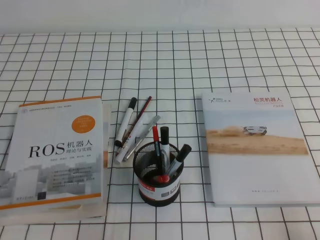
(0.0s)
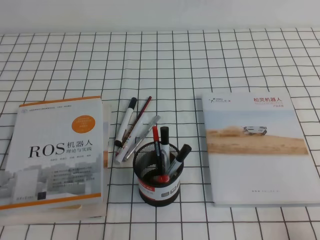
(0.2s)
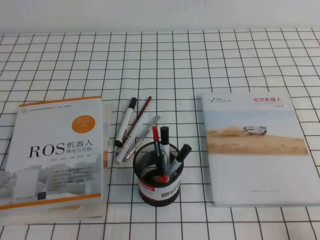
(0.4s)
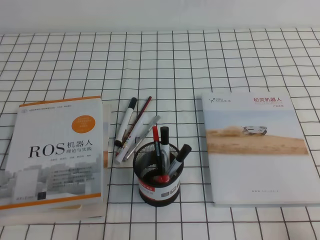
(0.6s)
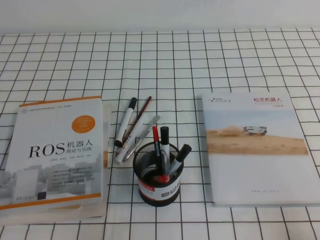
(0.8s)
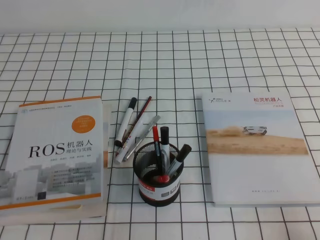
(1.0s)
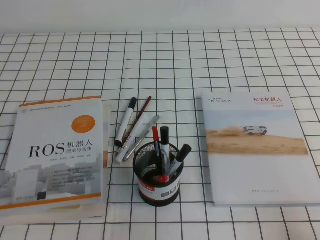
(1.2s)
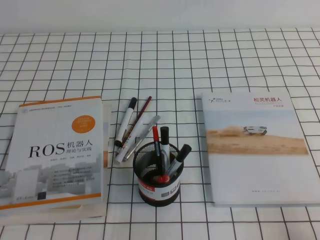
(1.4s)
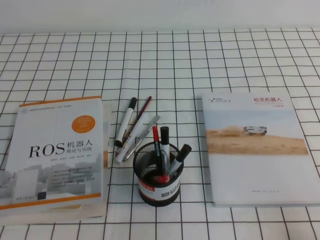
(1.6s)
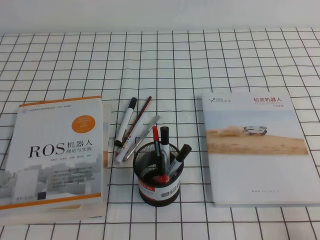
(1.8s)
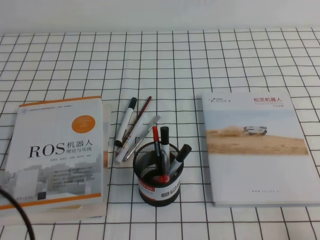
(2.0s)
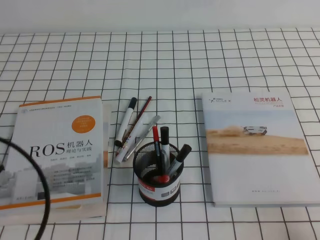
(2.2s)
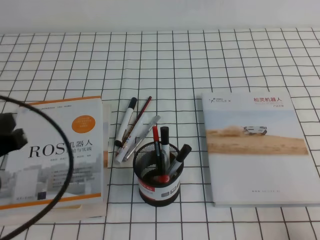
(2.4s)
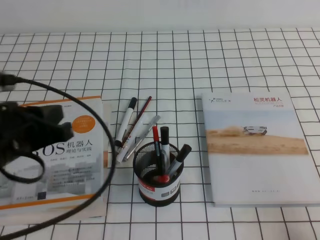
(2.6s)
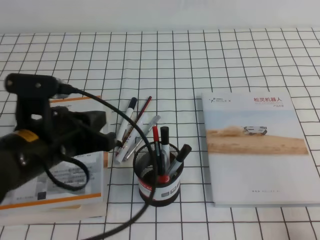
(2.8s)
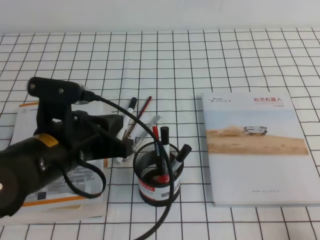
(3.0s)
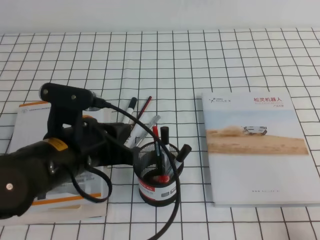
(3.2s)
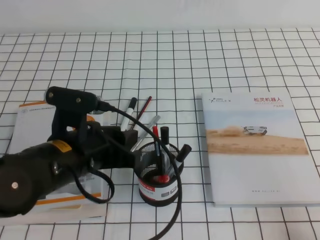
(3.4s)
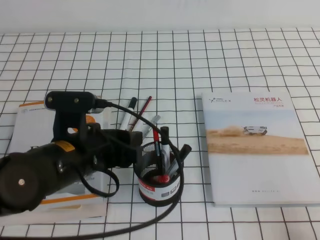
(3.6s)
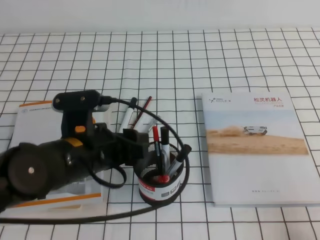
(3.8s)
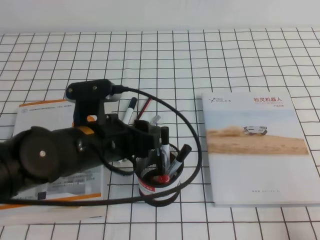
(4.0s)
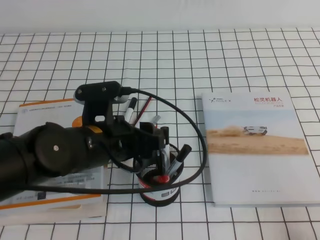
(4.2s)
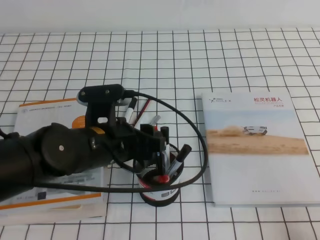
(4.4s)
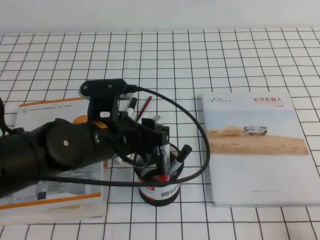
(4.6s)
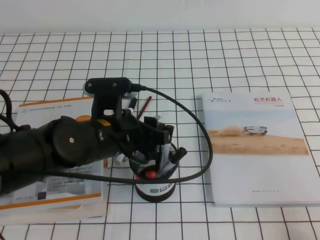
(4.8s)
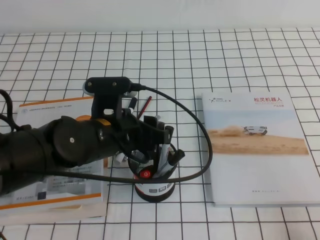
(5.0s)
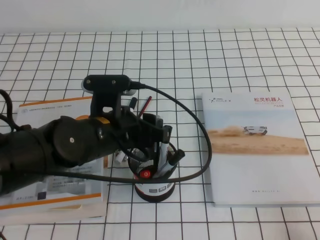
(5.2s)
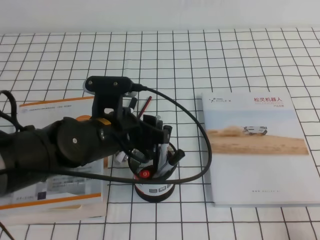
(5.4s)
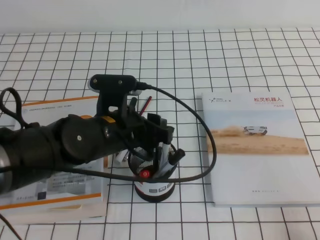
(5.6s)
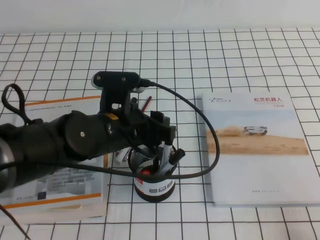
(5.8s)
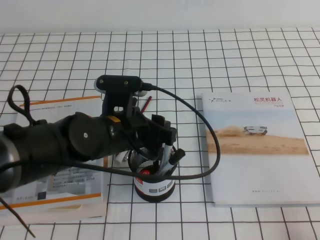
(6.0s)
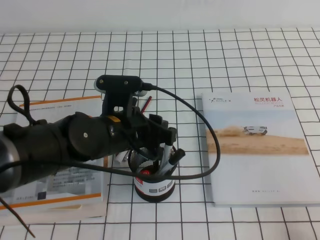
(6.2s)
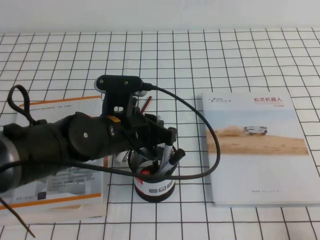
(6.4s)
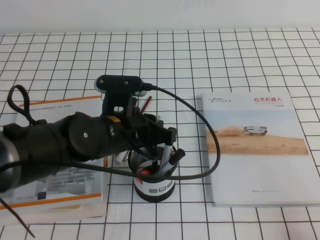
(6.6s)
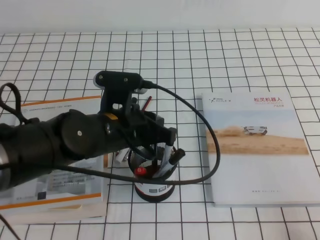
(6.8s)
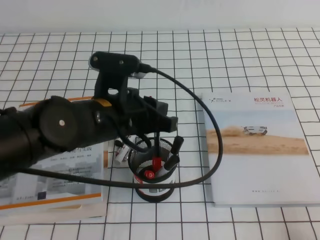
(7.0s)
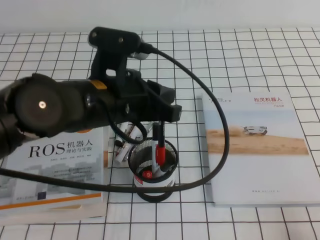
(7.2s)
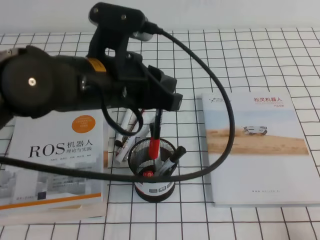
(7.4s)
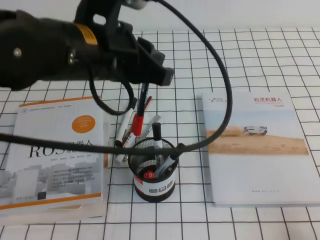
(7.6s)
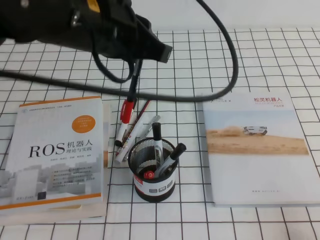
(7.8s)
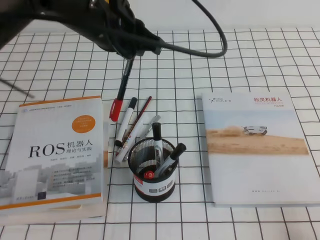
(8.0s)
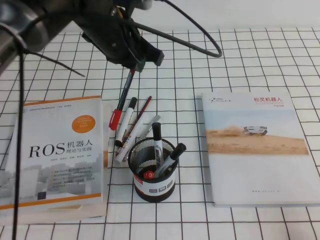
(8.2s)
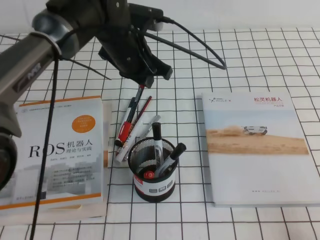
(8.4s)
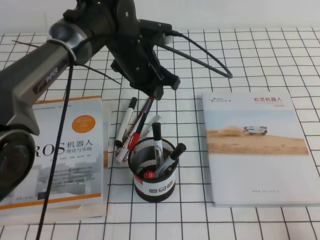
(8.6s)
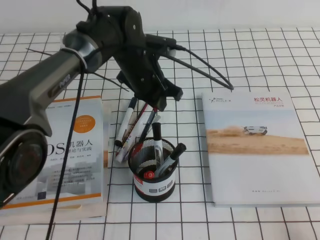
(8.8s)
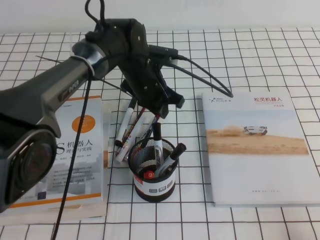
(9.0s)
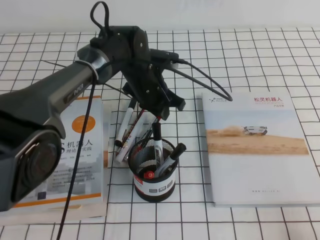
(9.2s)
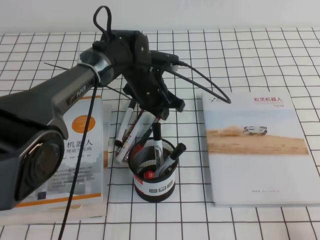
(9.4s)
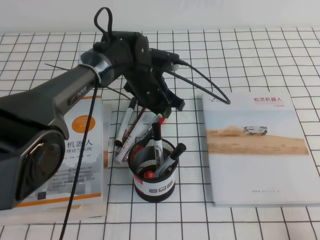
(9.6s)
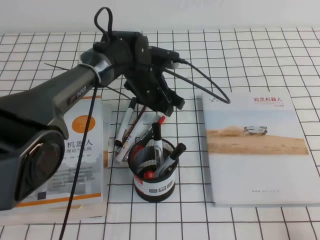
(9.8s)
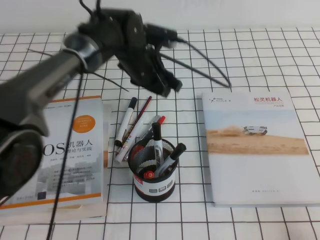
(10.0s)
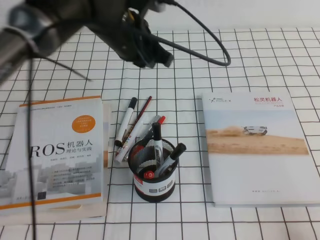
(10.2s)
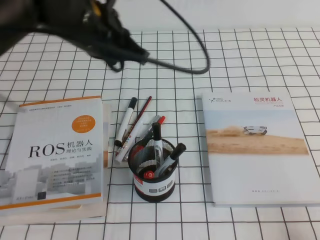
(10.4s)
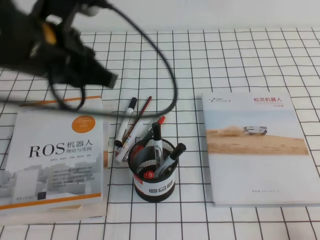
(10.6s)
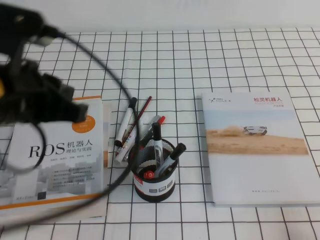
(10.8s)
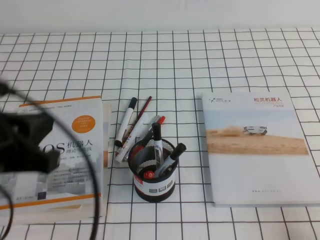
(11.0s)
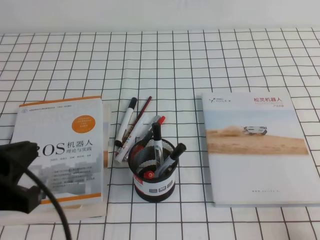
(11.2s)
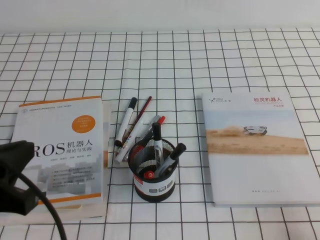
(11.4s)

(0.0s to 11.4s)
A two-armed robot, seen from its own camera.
1.4s - 2.8s: The left gripper shifts approximately 20 cm forward, to the right and upward.
2.8s - 4.2s: The left gripper heads to the right, covering about 10 cm, and opens its fingers.
4.2s - 5.6s: The grippers move only a little.
5.6s - 7.2s: The left gripper shifts approximately 10 cm upward, and closes up.
7.2s - 8.6s: The left gripper travels forward by approximately 15 cm.
8.6s - 10.0s: The left gripper reaches some 10 cm downward, then returns, and opens up.
10.0s - 11.4s: The left gripper is displaced backward and to the left by about 35 cm, and closes.

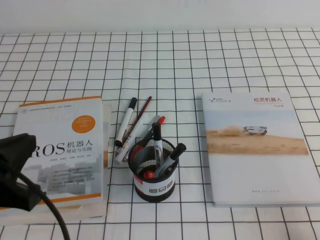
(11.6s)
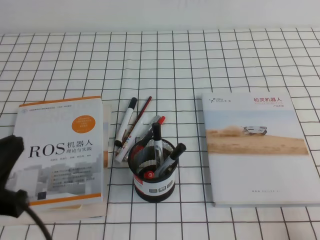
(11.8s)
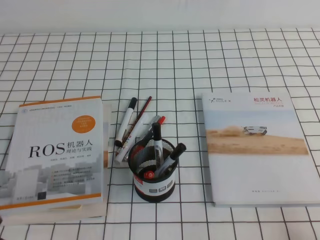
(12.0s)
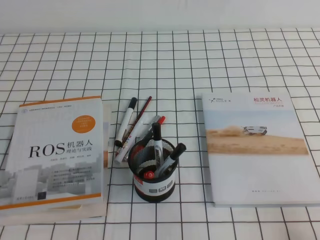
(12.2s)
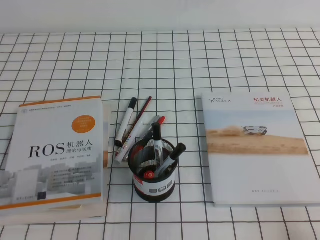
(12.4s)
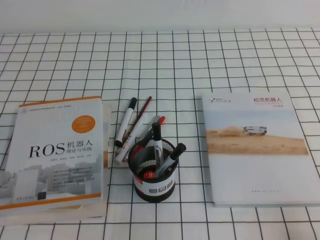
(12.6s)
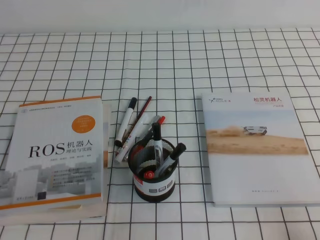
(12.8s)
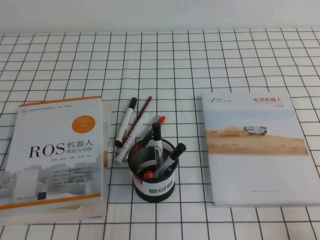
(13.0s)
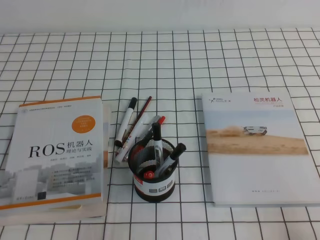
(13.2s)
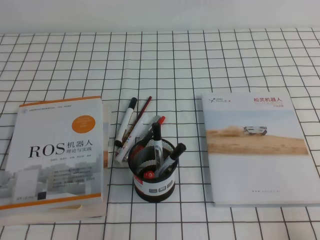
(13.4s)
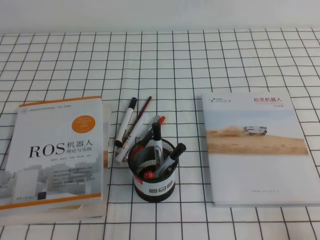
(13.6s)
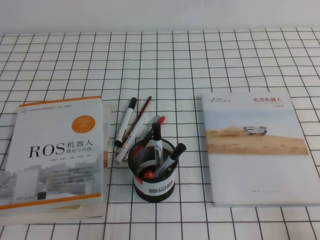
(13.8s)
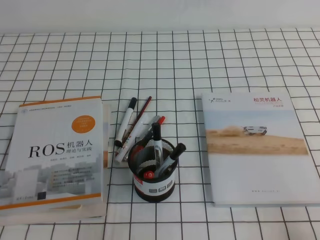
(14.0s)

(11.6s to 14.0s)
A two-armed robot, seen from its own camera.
Step, 11.6s - 14.0s: Pick up the pen from the pen holder.
11.6s - 12.8s: The left gripper goes approximately 15 cm downward and backward.

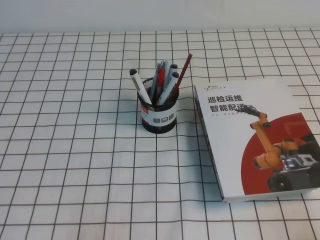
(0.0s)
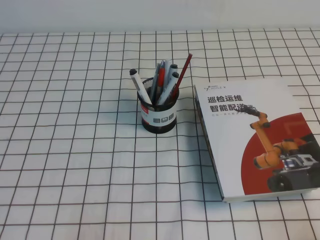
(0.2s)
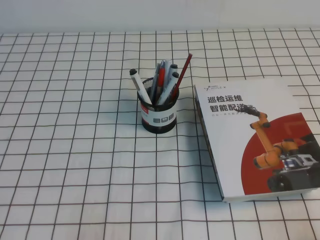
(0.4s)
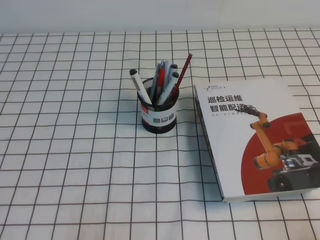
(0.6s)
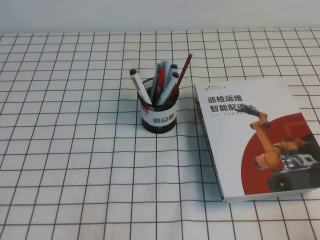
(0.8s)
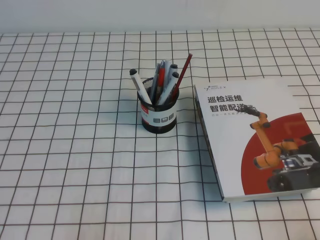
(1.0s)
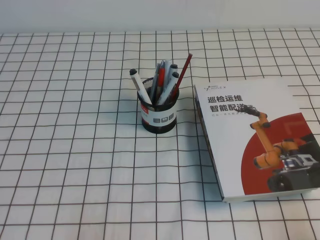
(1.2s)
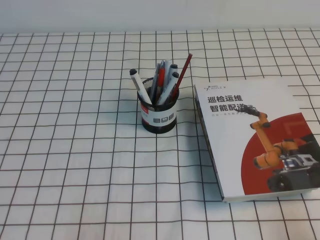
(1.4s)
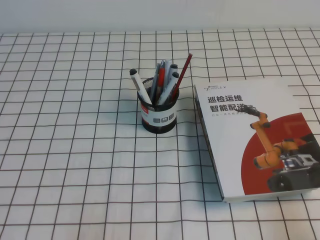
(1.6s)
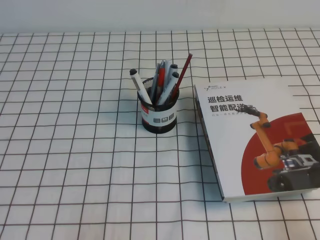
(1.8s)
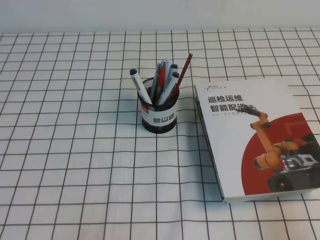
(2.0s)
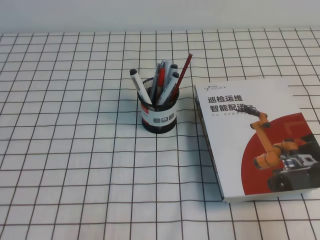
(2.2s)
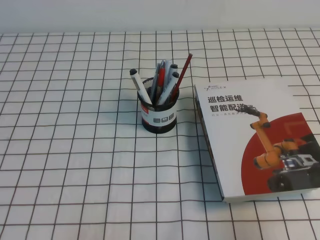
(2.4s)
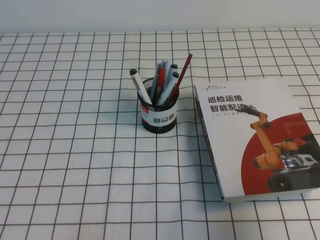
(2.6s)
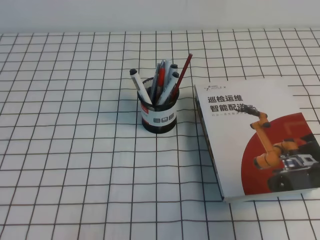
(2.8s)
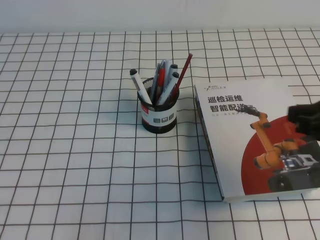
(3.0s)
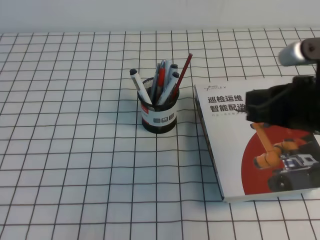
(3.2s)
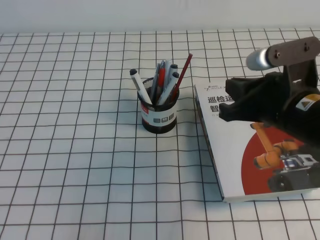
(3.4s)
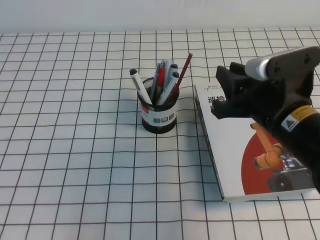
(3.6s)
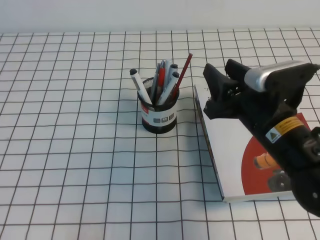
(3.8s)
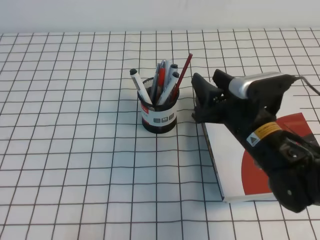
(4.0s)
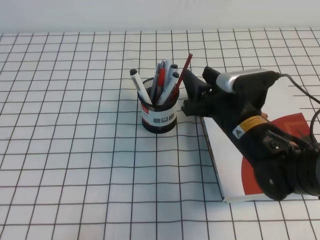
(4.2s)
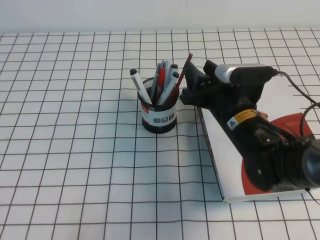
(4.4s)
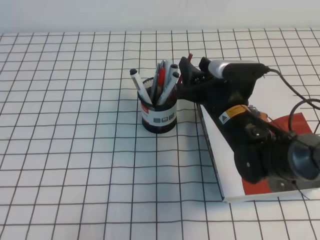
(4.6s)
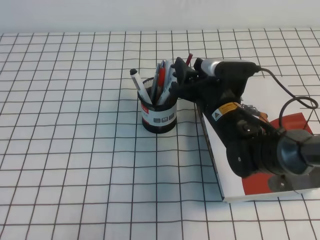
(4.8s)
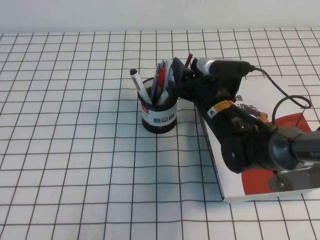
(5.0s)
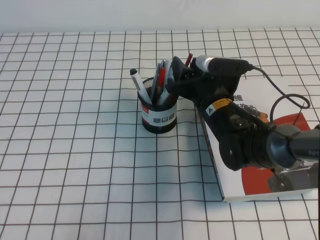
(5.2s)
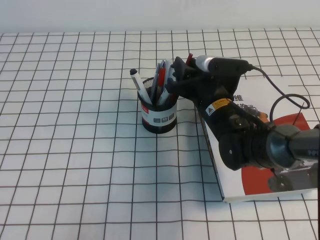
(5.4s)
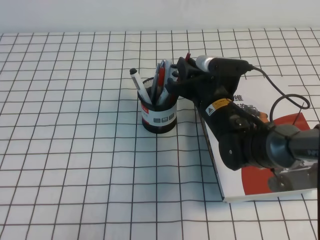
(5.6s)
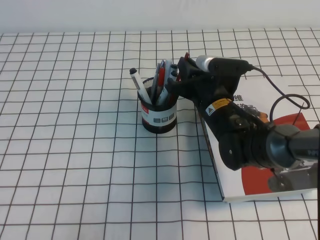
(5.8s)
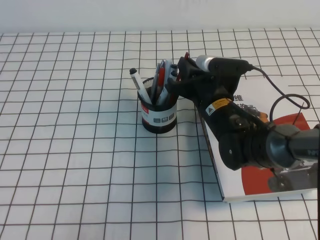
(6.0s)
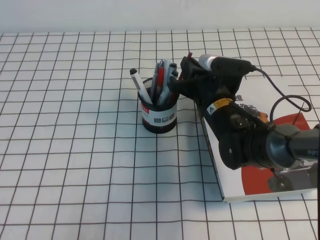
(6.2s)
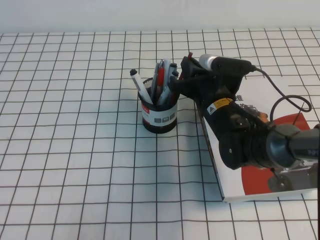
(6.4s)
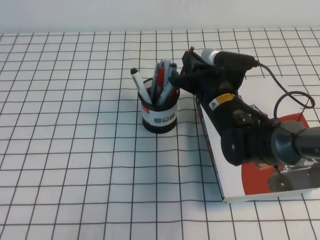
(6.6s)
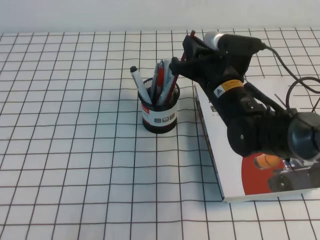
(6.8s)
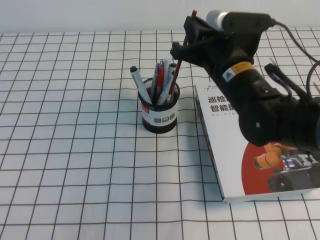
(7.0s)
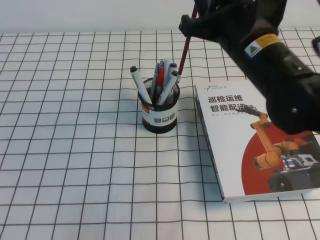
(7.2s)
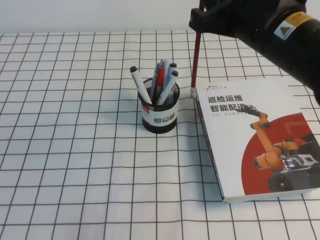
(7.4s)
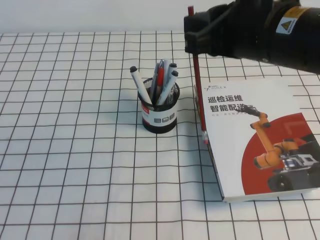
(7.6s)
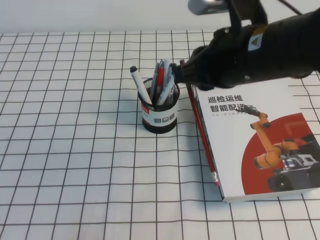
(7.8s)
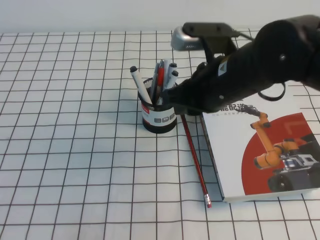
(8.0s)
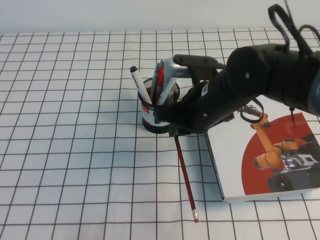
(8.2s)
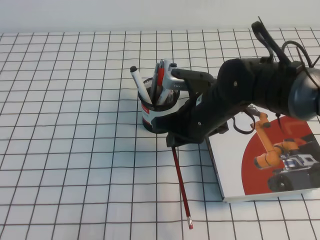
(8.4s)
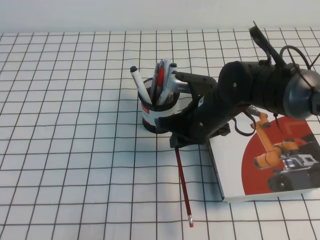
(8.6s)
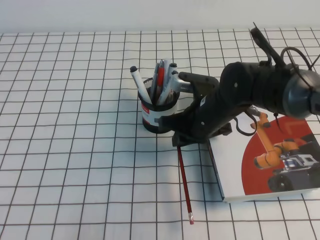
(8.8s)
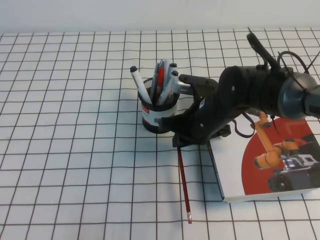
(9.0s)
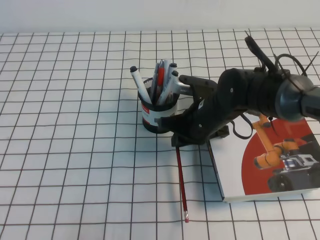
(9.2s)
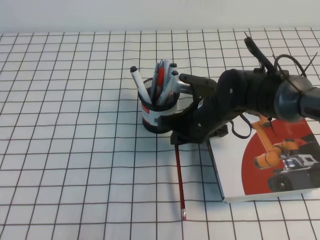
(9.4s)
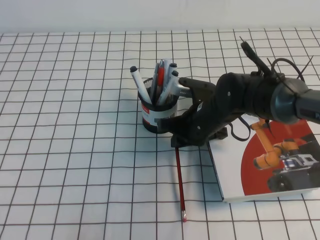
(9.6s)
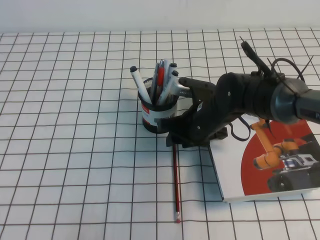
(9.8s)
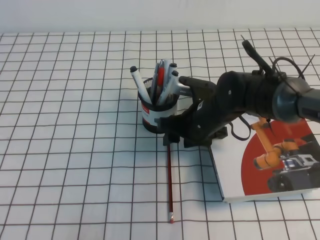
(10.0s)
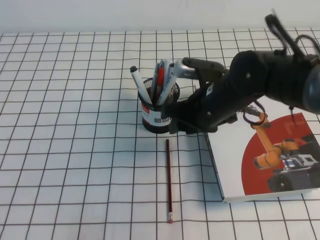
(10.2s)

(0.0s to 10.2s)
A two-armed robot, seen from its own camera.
1.4s - 3.0s: The right gripper heads forward, upward and to the left, covering roughly 20 cm.
3.0s - 4.4s: The right gripper goes approximately 20 cm to the left, forward and downward, and opens.
4.4s - 5.8s: The right gripper ends up about 5 cm from where it was, and closes up.
5.8s - 7.2s: The right gripper is displaced upward by about 15 cm.
7.2s - 8.8s: The right gripper heads downward, covering some 15 cm.
8.8s - 10.2s: The right gripper opens its fingers.
